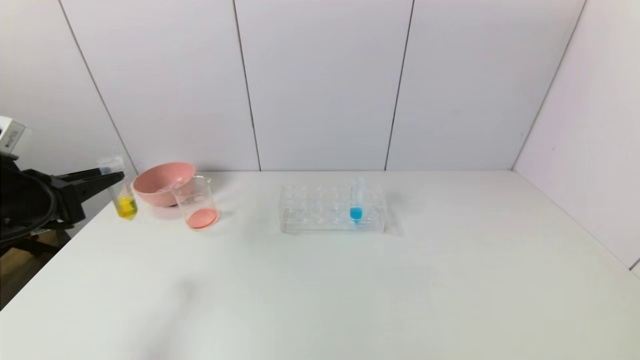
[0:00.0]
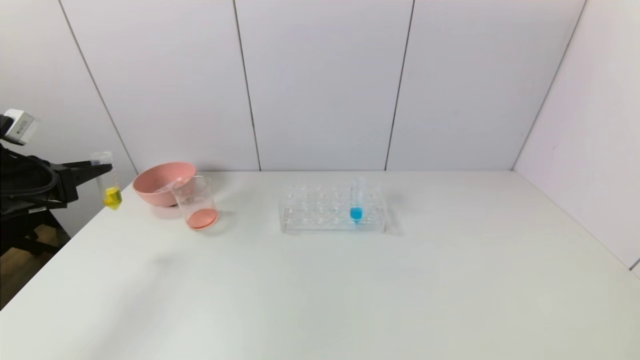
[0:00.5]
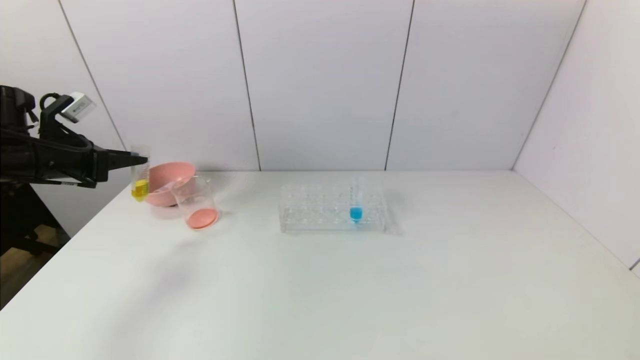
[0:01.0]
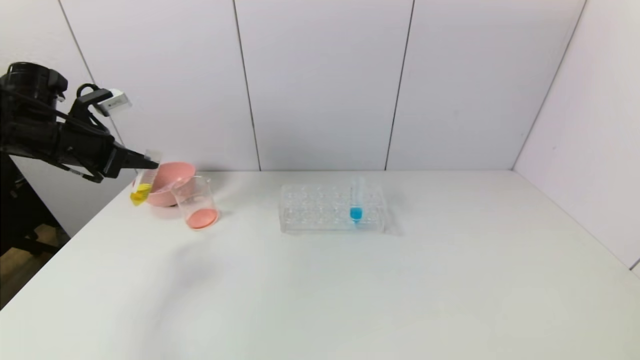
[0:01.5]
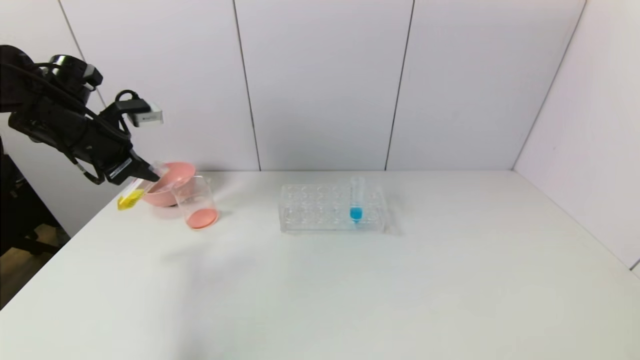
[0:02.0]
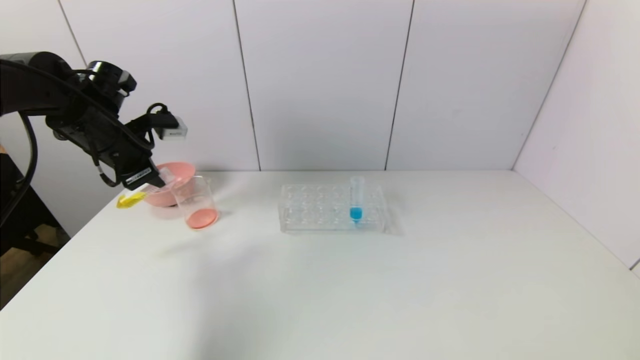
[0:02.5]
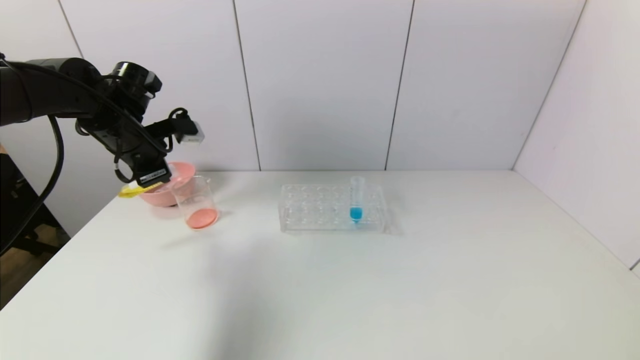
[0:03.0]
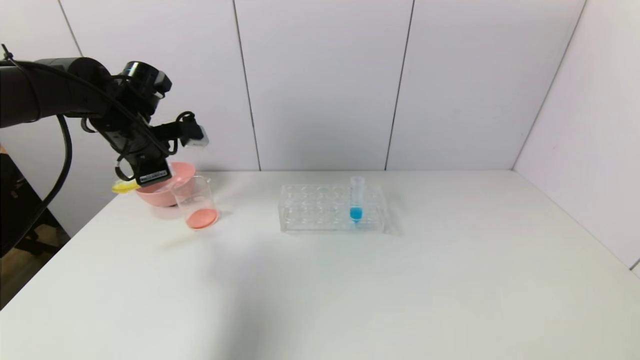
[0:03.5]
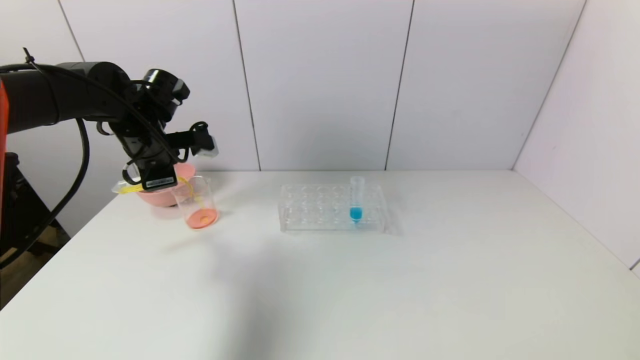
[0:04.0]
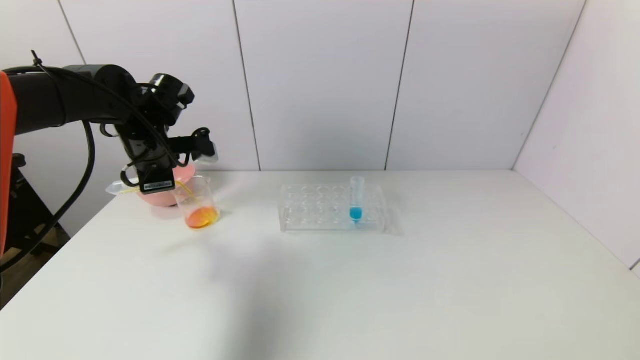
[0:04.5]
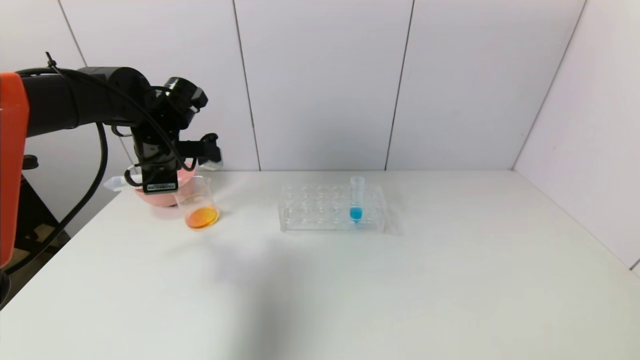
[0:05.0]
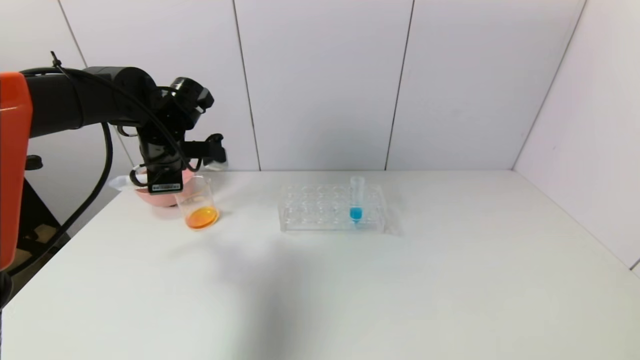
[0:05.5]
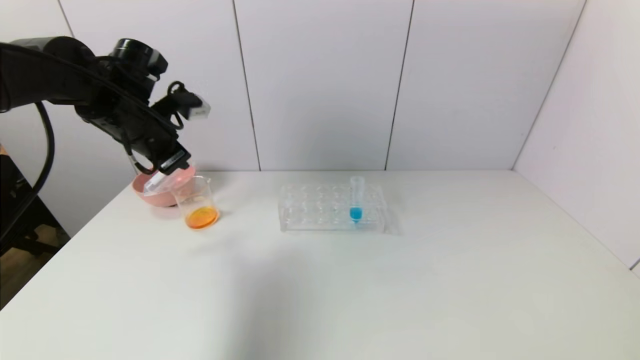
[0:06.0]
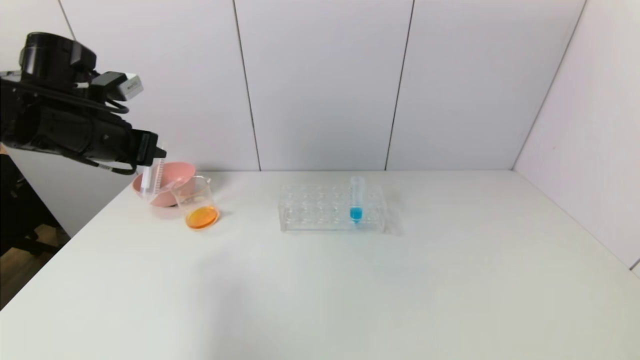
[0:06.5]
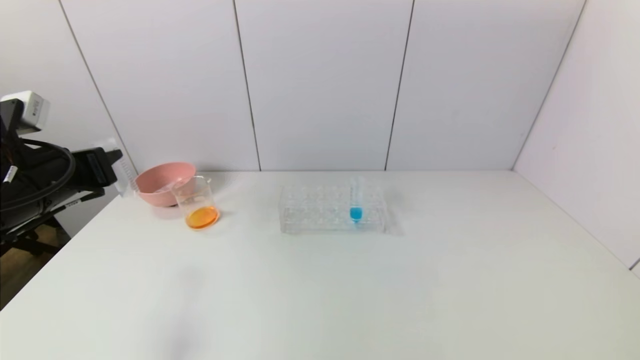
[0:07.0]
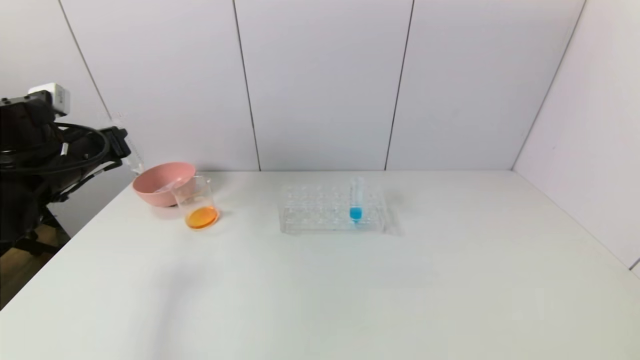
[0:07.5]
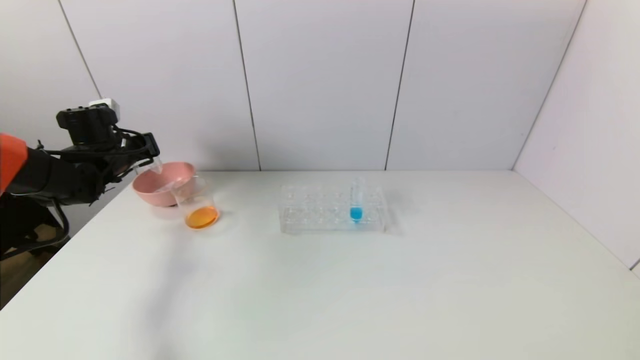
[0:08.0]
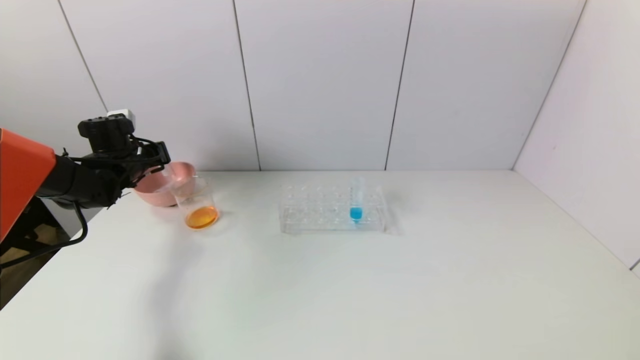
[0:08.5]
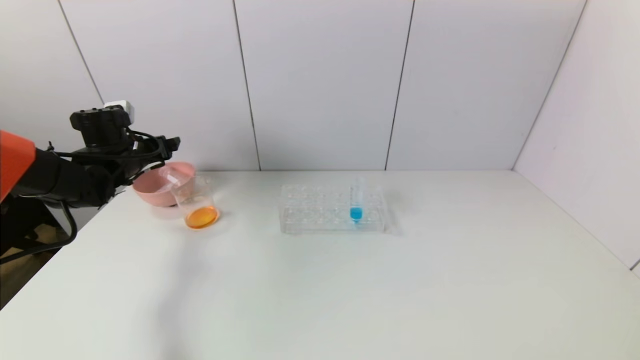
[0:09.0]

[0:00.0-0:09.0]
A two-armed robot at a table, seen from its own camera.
Task of the whole recording: pick up the test tube with yellow pigment and the test tube with red pigment by grippers and pour them into the beaker.
Step, 0:00.0 to 0:05.0: Pour the yellow reagent into the graduated cylinder with the left gripper.
Step, 0:05.5 to 0:08.5: Place the test tube into the pink bowl with the left gripper.
0:00.0 to 0:02.0: The left gripper shifts roughly 15 cm forward and upward.
0:02.0 to 0:04.5: The left gripper moves to the right, approximately 10 cm.
0:04.5 to 0:07.0: The left gripper heads backward and to the left, covering approximately 15 cm.
0:07.0 to 0:09.0: The left gripper goes some 20 cm forward, and opens.

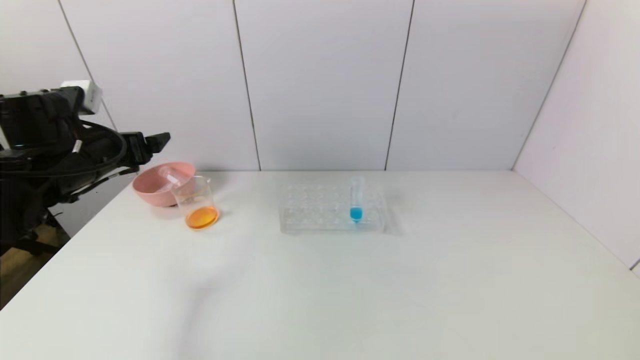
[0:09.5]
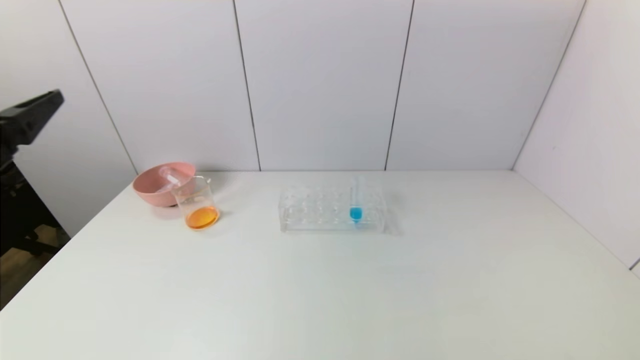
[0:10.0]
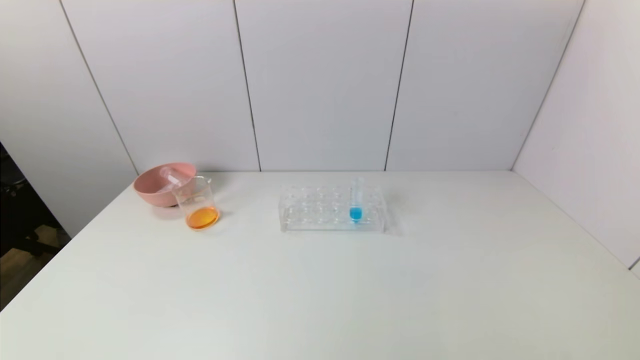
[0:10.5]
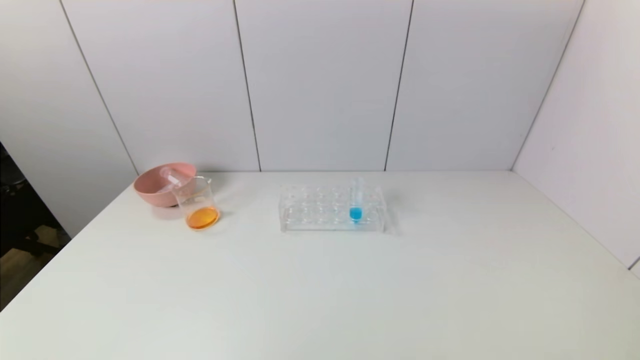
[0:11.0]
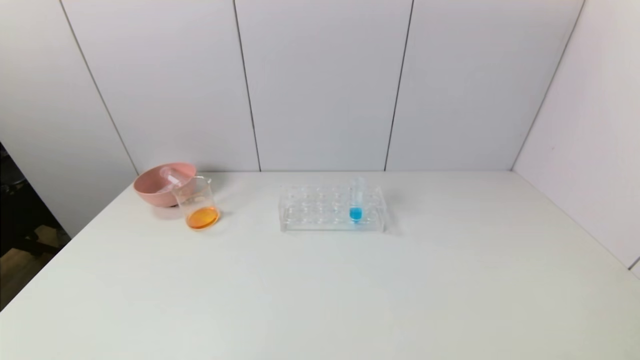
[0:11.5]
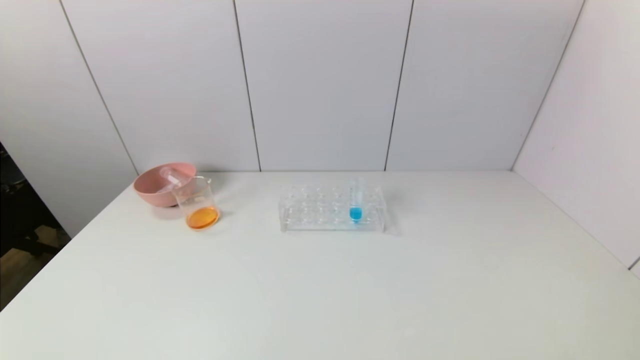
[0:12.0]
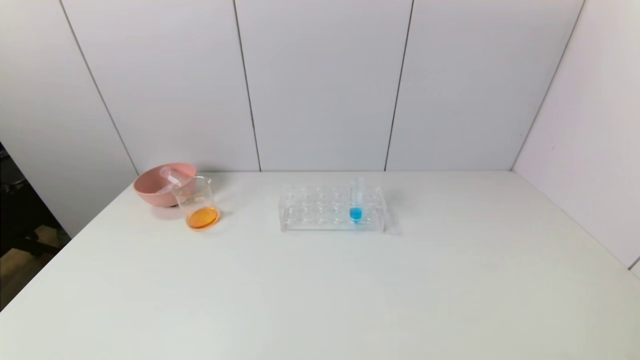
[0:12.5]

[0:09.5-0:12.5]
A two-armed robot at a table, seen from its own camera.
Task of the whole recording: pick up the test tube with yellow pigment and the test tube with red pigment by grippers and pour them into the beaker.
0:09.5 to 0:11.0: The left gripper shifts roughly 40 cm backward.
